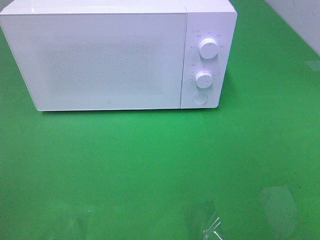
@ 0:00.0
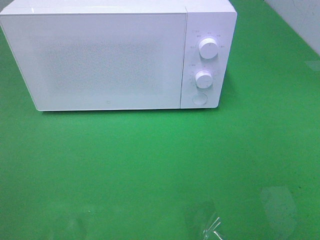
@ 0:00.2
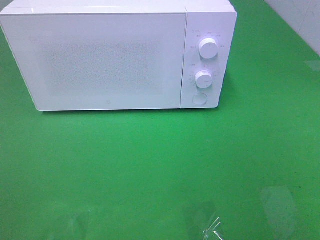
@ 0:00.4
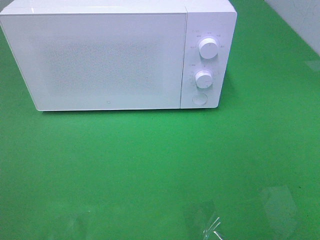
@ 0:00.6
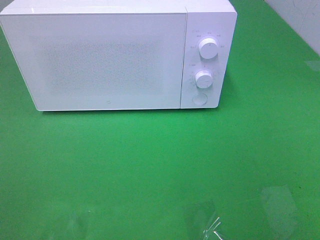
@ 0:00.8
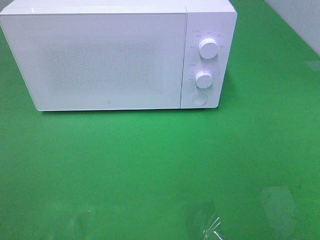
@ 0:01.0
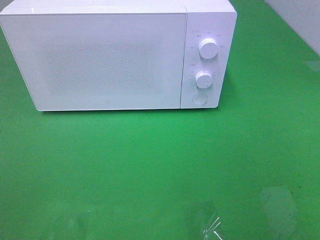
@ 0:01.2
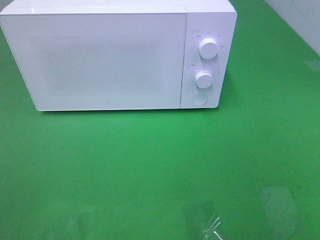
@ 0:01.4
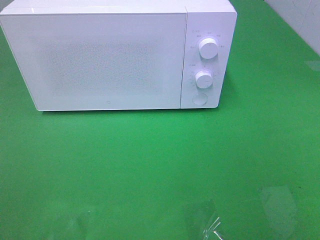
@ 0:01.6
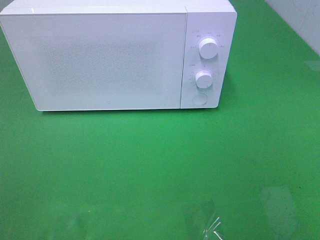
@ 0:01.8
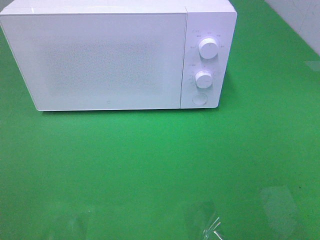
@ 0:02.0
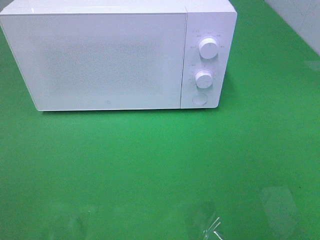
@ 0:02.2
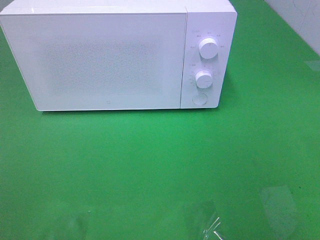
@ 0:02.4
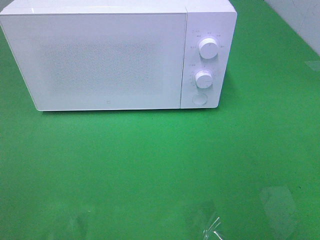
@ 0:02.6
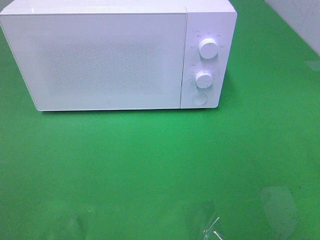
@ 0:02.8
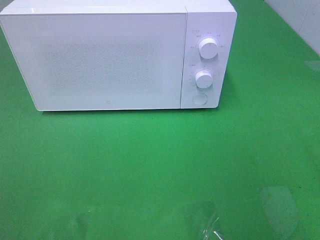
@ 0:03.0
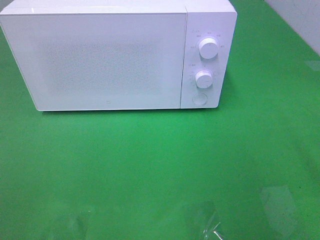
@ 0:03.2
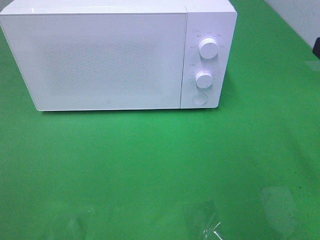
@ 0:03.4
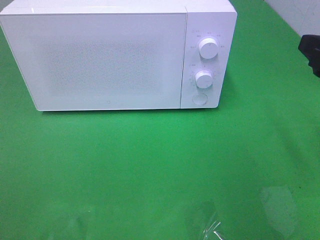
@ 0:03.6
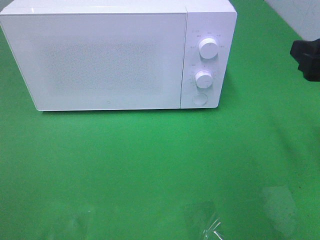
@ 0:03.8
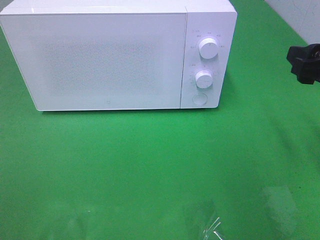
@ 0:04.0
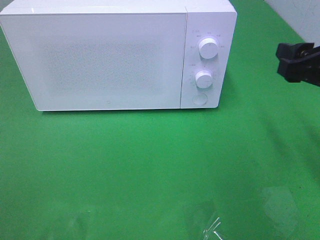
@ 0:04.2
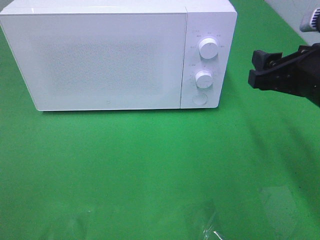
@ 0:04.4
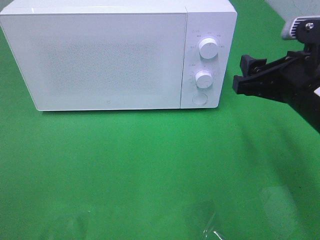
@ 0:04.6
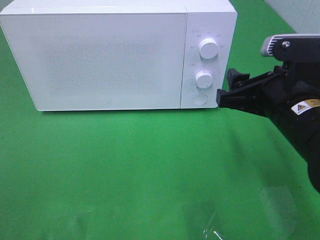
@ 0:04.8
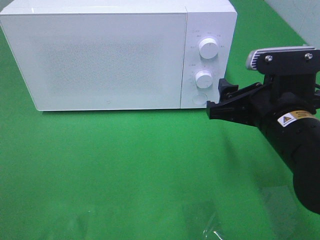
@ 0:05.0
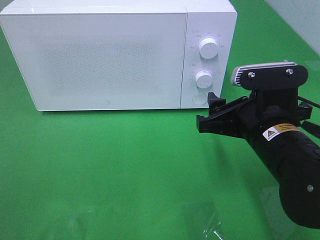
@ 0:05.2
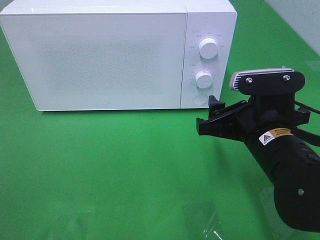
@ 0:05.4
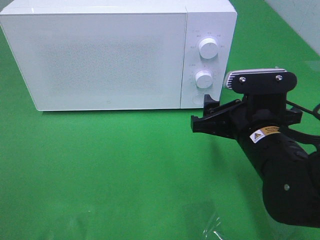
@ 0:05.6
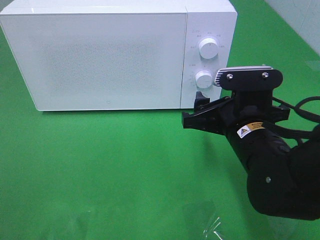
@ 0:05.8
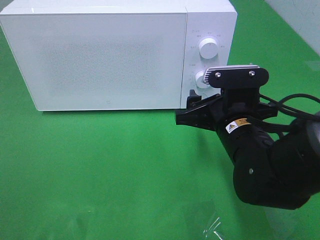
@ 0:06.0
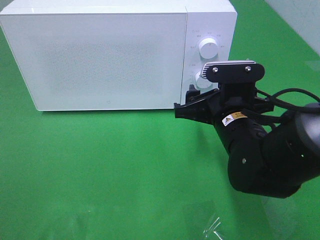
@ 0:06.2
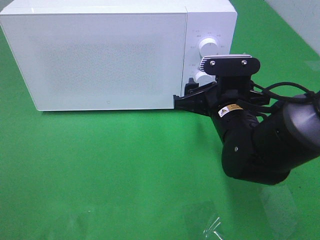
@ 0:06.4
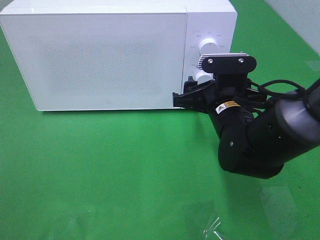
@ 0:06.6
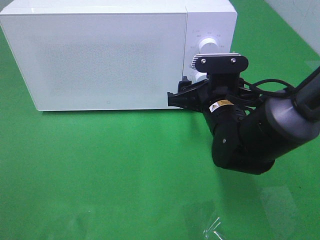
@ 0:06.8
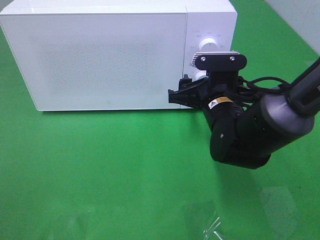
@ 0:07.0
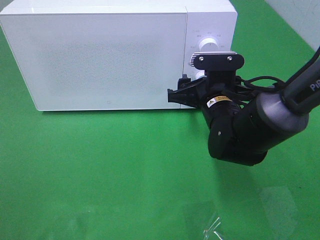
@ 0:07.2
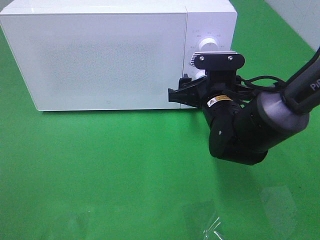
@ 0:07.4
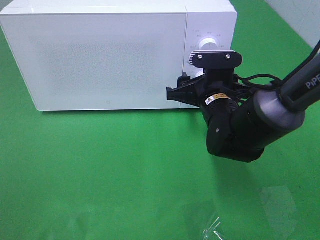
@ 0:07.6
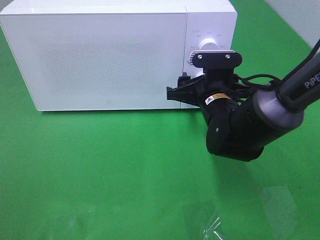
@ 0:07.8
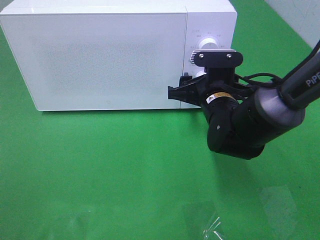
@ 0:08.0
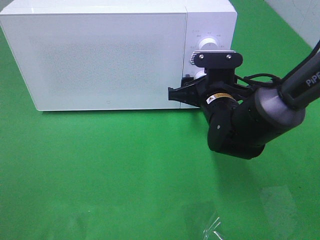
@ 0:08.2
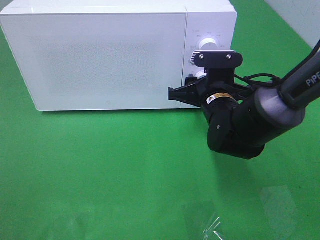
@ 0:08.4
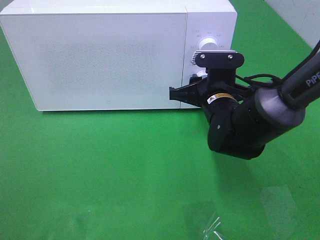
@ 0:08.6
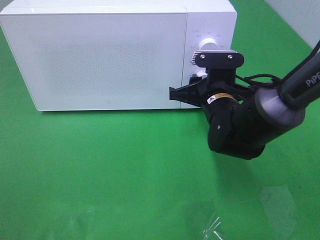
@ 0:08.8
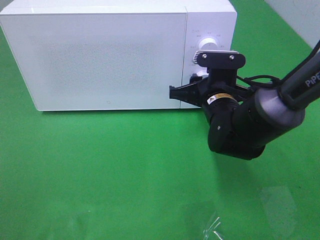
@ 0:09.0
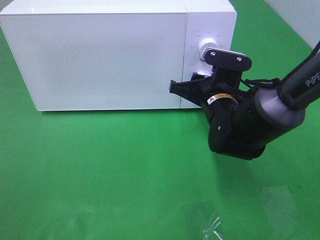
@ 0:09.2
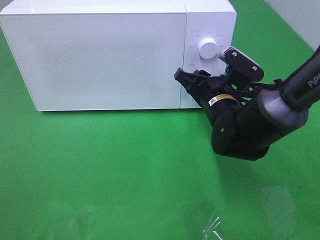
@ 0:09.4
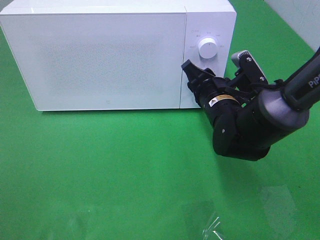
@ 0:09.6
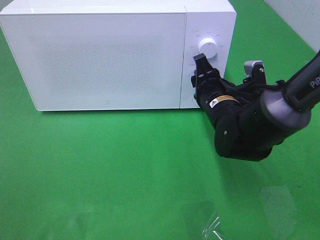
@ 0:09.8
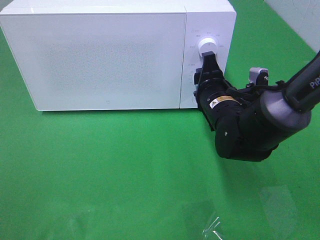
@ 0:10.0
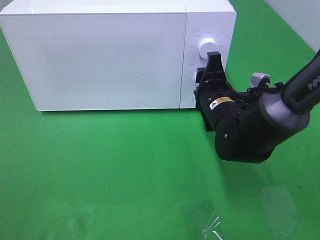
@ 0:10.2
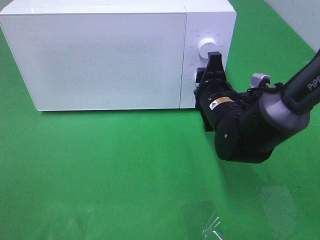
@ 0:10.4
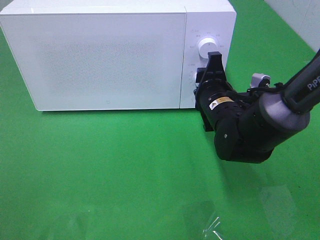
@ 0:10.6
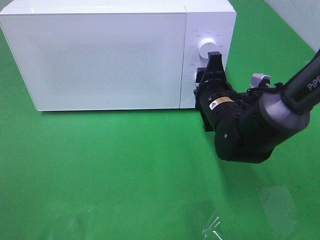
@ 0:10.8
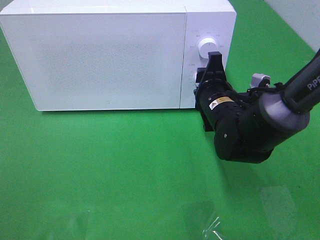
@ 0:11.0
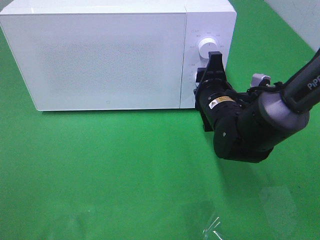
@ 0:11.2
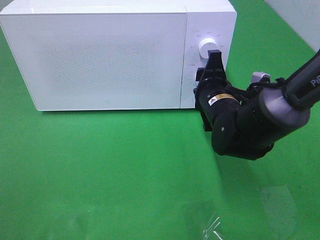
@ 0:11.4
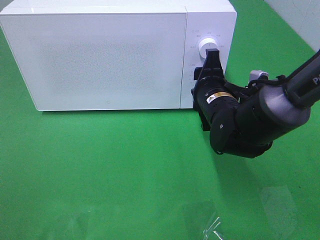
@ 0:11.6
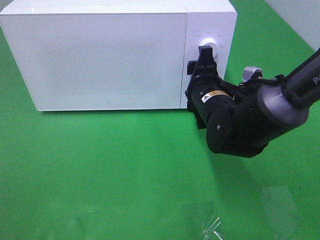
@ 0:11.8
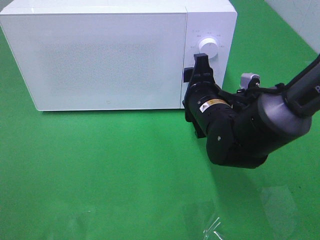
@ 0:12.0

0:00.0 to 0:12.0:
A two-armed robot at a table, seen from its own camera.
Task of the whole recording: Heat the burger.
0:03.0 to 0:04.4: The right gripper is displaced forward, downward and to the left by some 15 cm.
0:04.4 to 0:06.0: The right gripper travels to the left and downward by roughly 15 cm.
0:06.0 to 0:07.6: The right gripper heads forward, covering about 10 cm.
0:07.6 to 0:09.0: Both grippers stay put.
0:10.4 to 0:12.0: There are only small adjustments of the grippers.

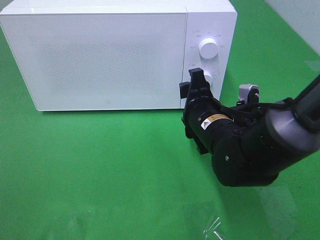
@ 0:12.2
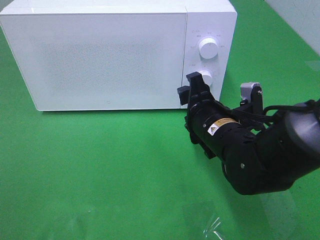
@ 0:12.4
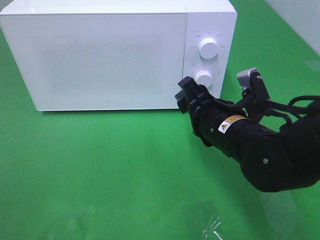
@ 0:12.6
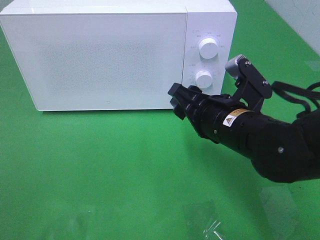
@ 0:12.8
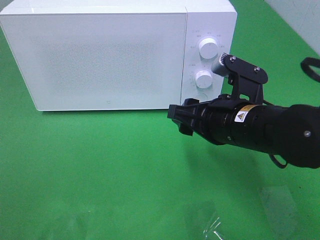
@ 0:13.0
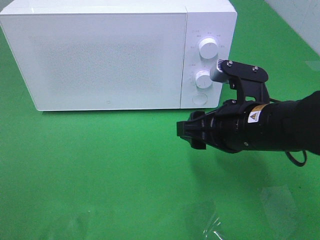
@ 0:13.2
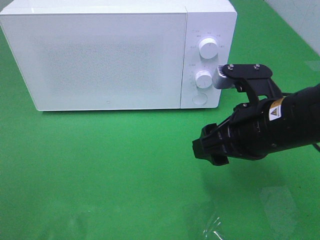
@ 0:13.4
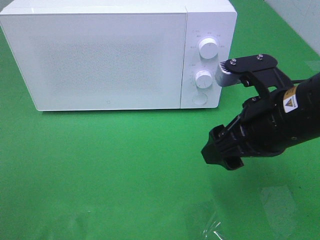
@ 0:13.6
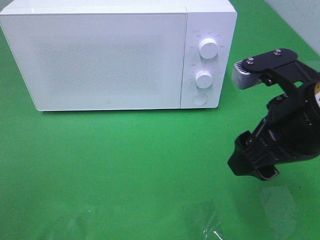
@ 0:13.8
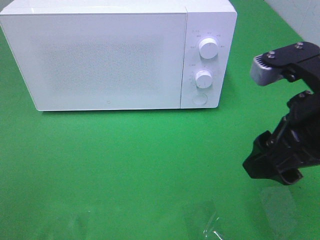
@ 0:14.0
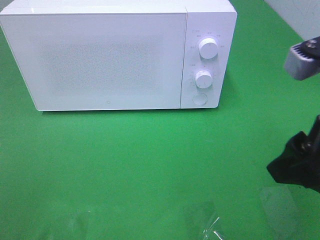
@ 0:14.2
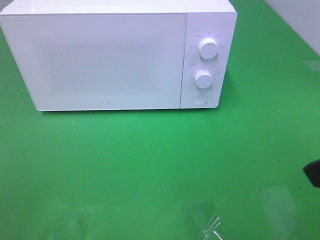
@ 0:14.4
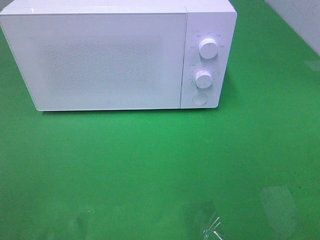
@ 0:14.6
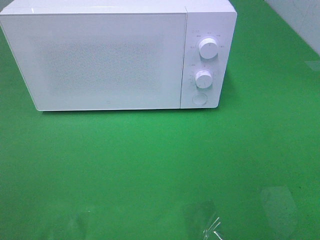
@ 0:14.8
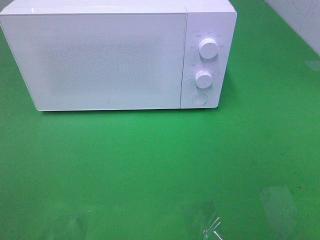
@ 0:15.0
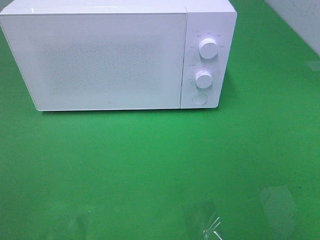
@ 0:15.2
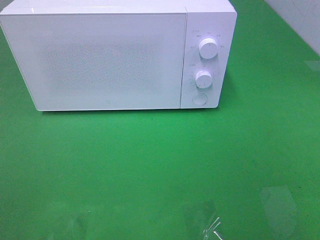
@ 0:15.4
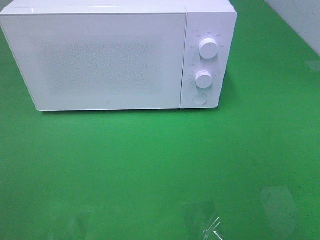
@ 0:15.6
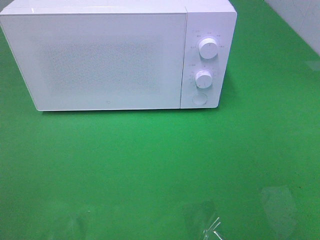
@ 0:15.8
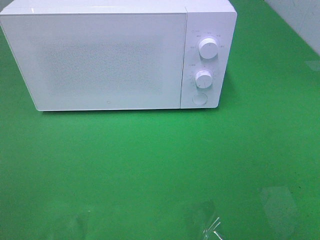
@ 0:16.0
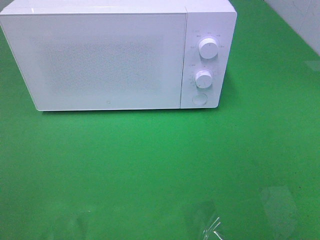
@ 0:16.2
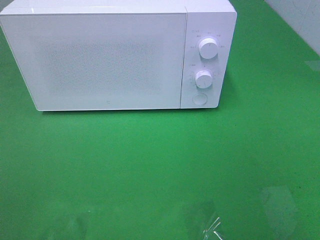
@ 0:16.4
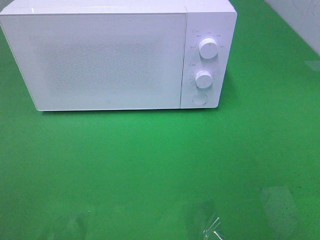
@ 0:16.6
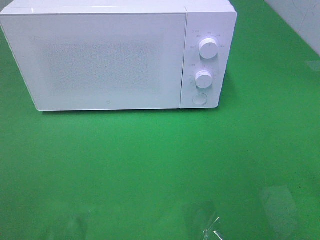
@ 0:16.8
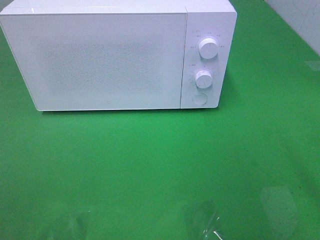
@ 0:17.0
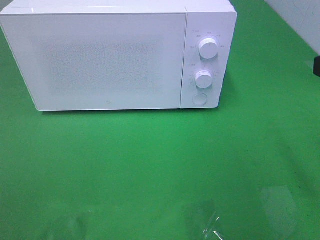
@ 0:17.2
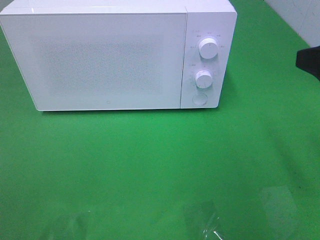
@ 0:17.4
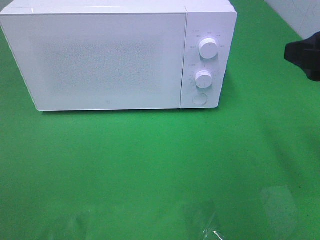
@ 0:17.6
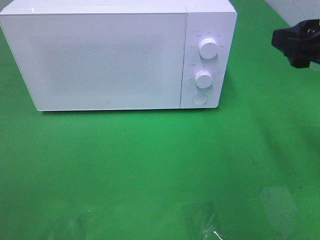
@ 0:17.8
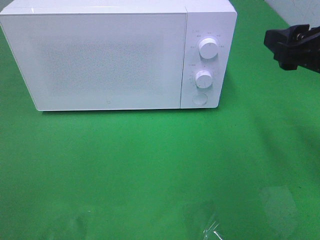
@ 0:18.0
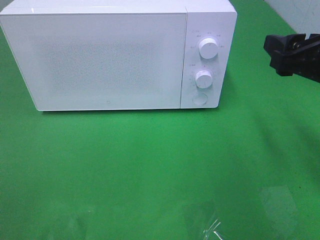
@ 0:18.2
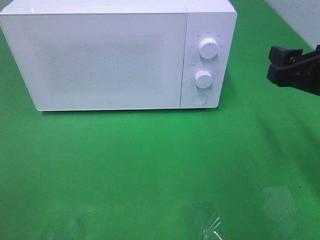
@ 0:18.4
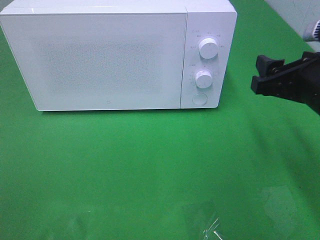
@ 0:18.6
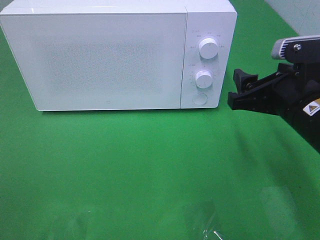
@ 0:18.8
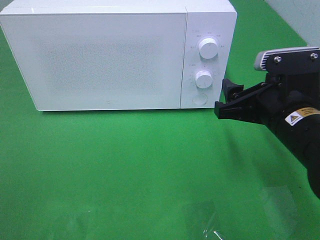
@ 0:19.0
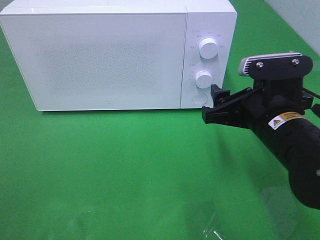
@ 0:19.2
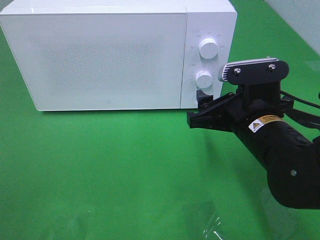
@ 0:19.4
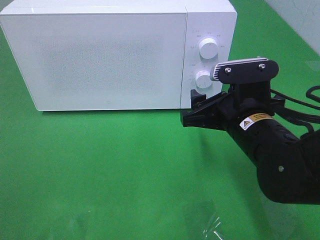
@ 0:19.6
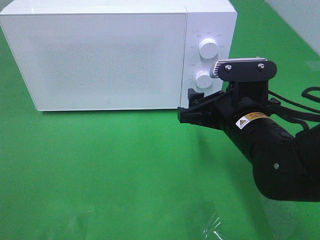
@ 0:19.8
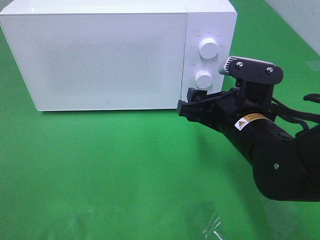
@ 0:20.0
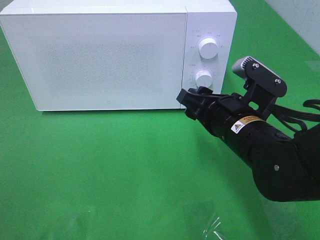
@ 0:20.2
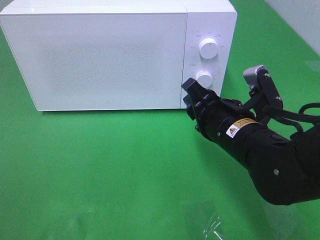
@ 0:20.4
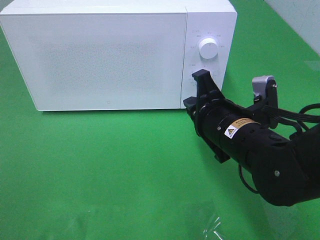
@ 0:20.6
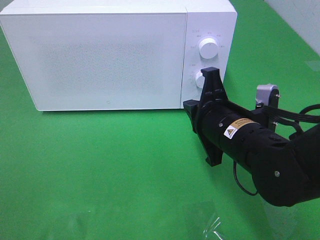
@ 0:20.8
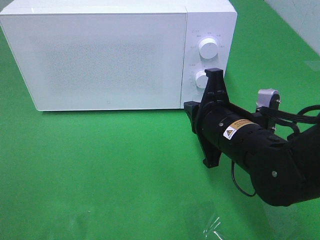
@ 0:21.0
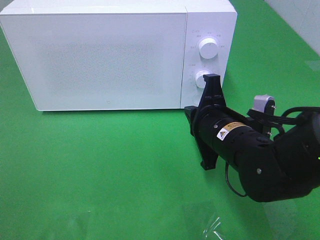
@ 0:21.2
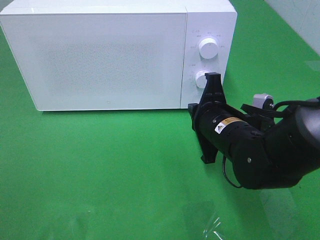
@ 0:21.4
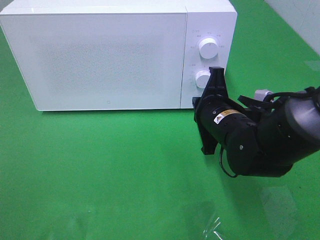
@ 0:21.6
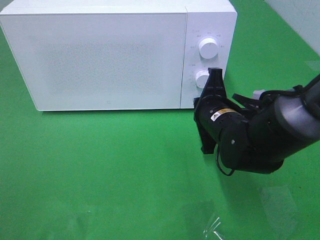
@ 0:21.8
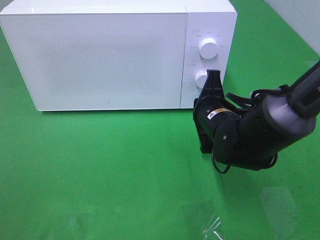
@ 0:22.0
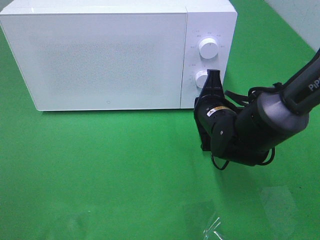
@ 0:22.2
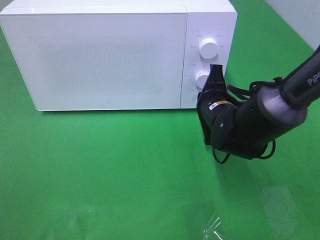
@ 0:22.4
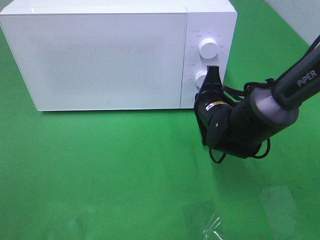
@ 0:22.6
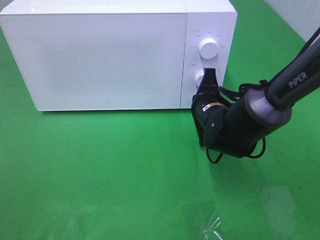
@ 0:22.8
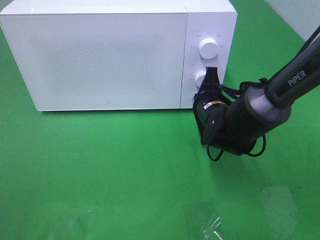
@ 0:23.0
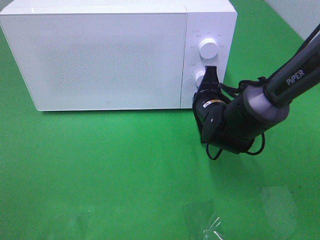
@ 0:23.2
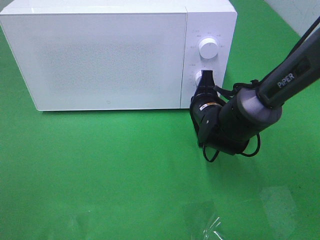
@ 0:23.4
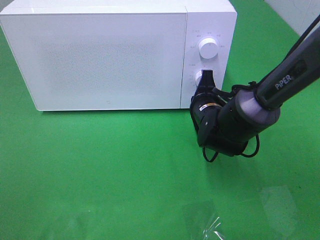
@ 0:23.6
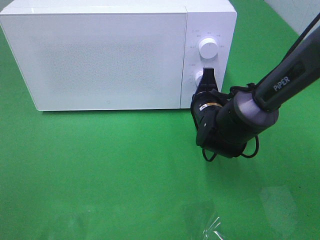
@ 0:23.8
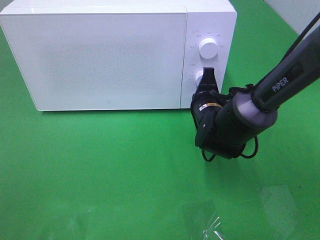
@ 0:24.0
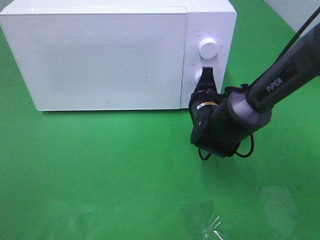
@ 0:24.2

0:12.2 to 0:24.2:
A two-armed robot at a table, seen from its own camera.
Task of the whole recording: Heat the burger.
0:12.2 to 0:13.8: The right gripper heads upward, backward and to the right, covering approximately 15 cm.
0:13.8 to 0:15.2: The right gripper travels backward and to the right by some 20 cm.
0:16.6 to 0:18.2: The right gripper goes roughly 15 cm forward and downward.
0:18.2 to 0:19.8: The right gripper shifts about 15 cm to the left and downward.
0:19.8 to 0:21.2: The right gripper closes its fingers.
0:21.2 to 0:22.6: The right gripper travels forward by roughly 10 cm.
0:22.6 to 0:24.2: The grippers move only a little.
